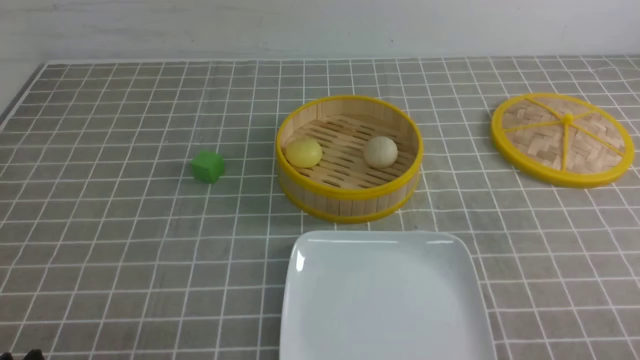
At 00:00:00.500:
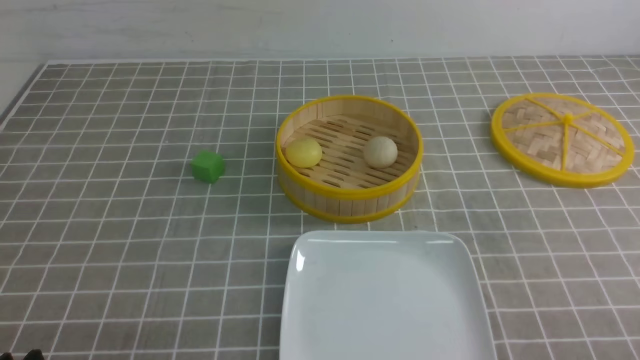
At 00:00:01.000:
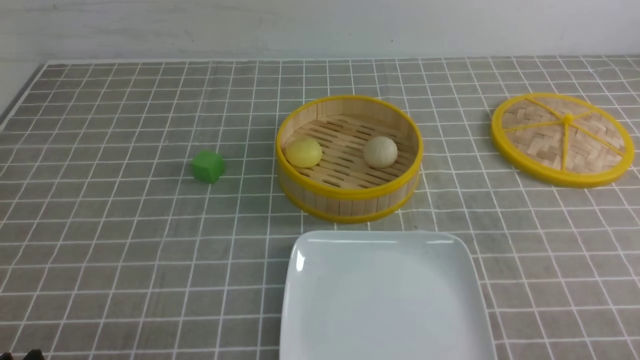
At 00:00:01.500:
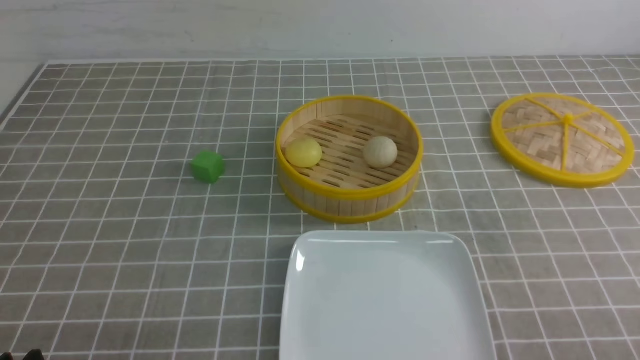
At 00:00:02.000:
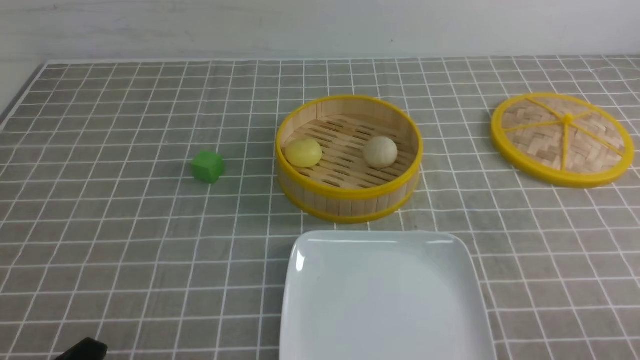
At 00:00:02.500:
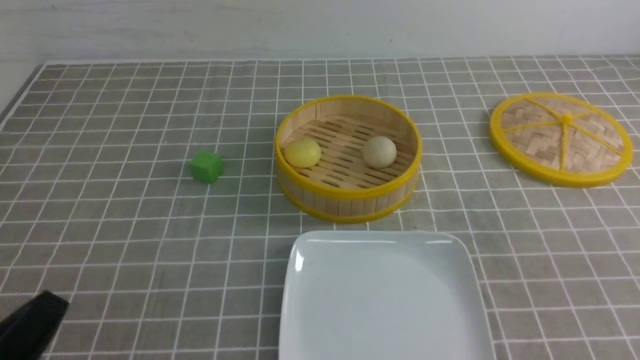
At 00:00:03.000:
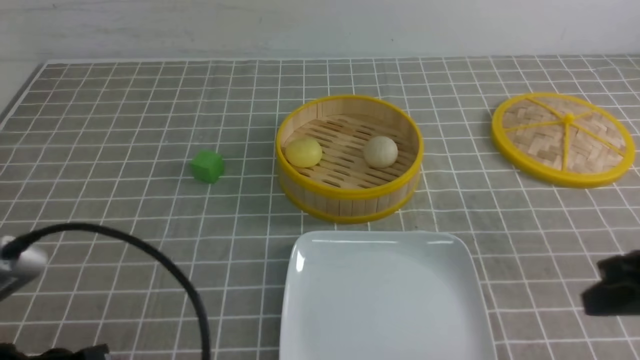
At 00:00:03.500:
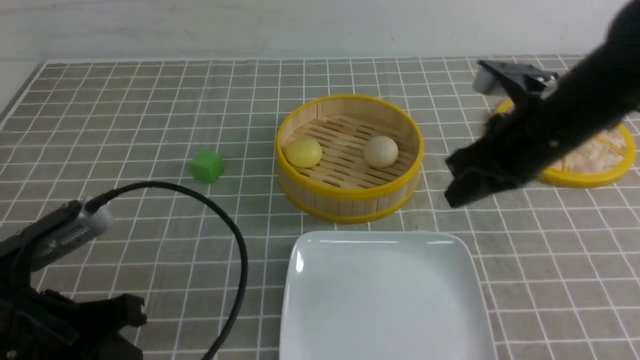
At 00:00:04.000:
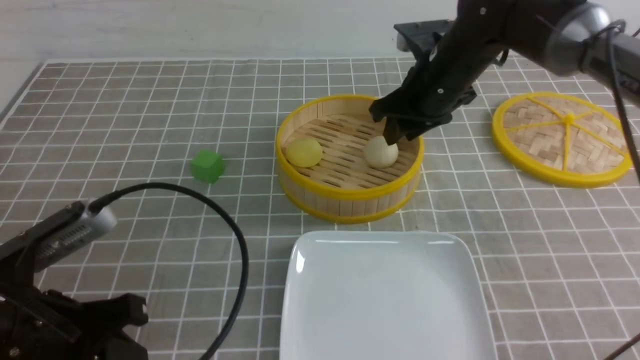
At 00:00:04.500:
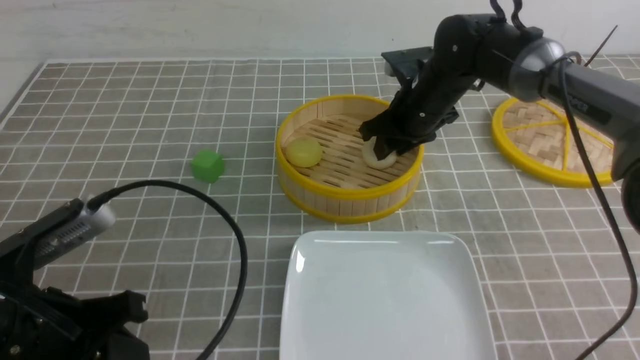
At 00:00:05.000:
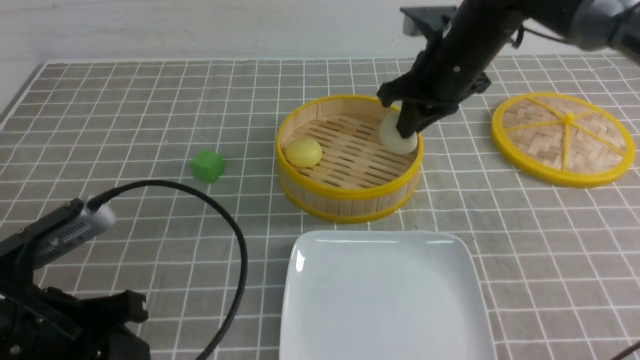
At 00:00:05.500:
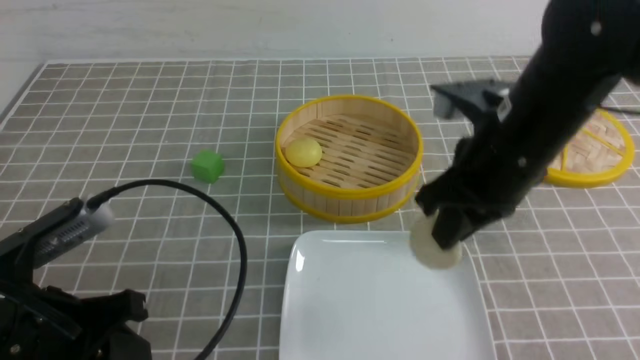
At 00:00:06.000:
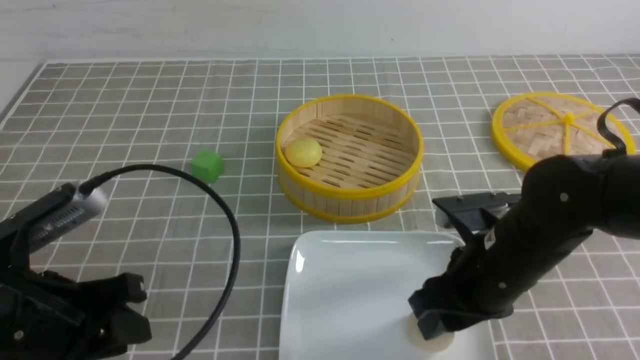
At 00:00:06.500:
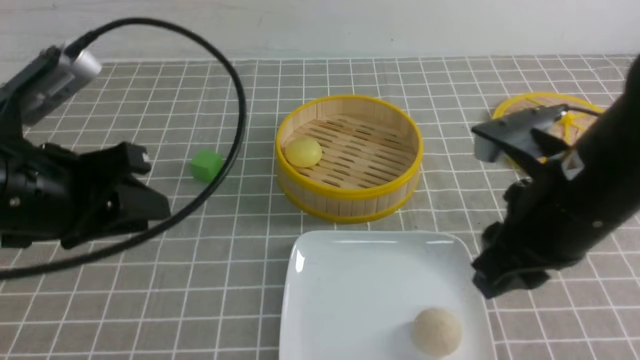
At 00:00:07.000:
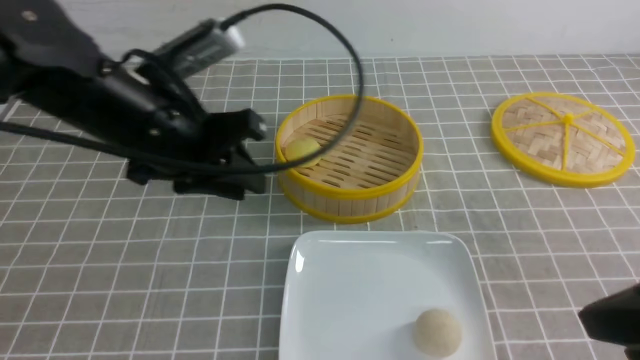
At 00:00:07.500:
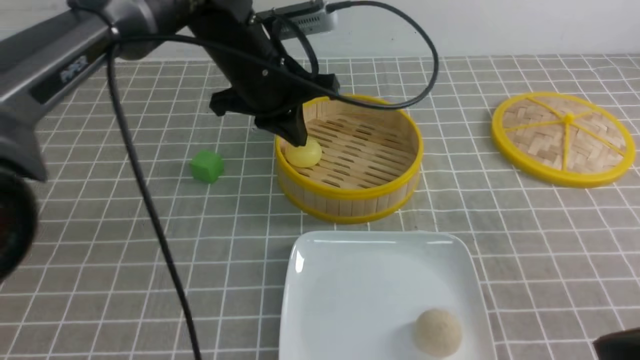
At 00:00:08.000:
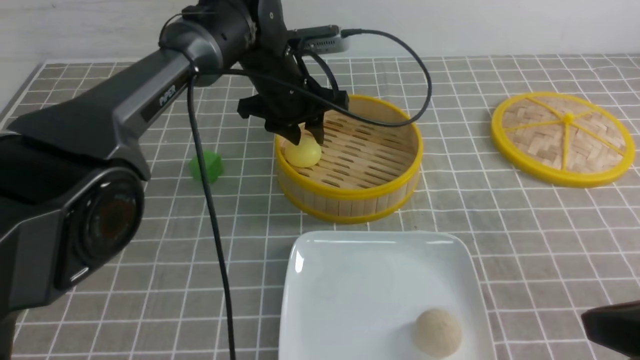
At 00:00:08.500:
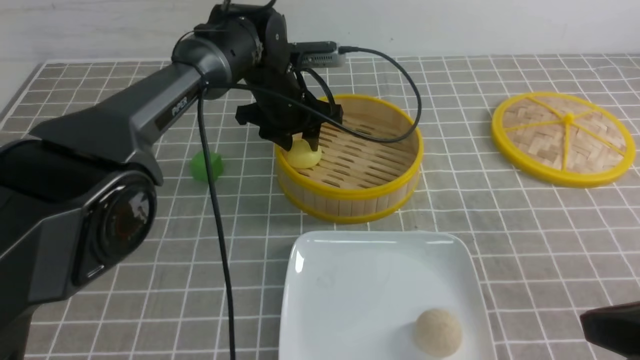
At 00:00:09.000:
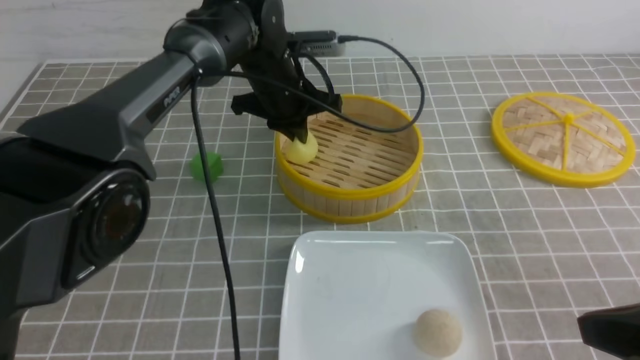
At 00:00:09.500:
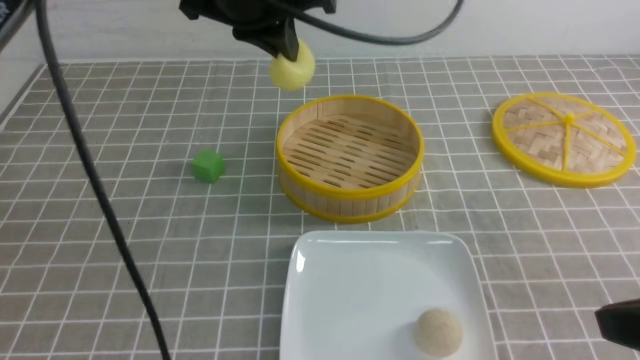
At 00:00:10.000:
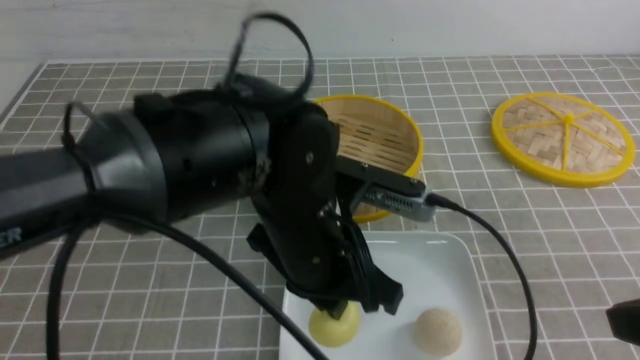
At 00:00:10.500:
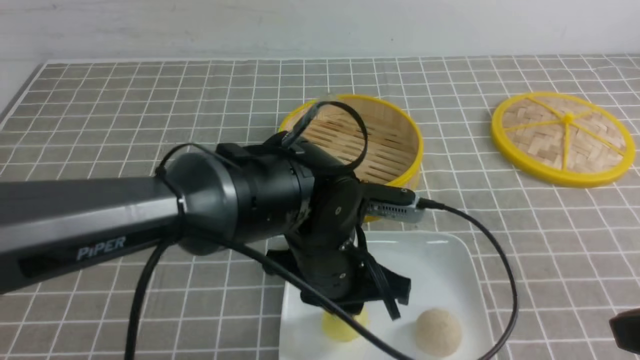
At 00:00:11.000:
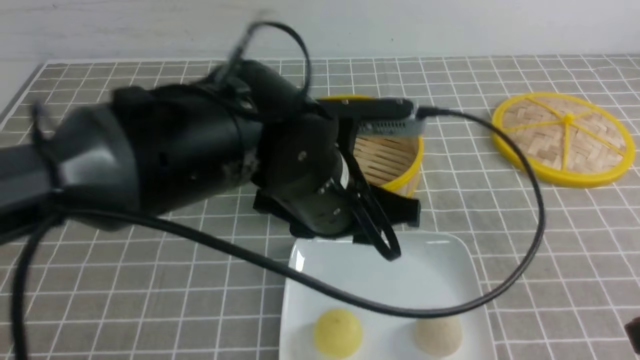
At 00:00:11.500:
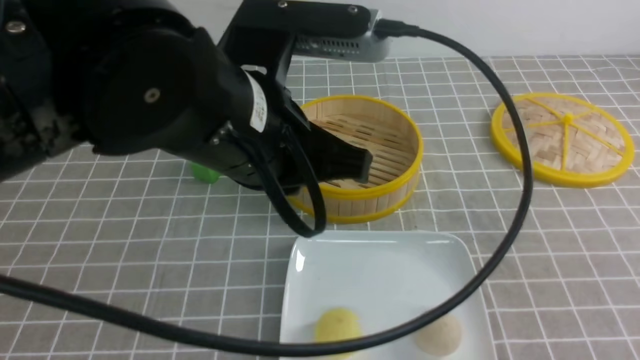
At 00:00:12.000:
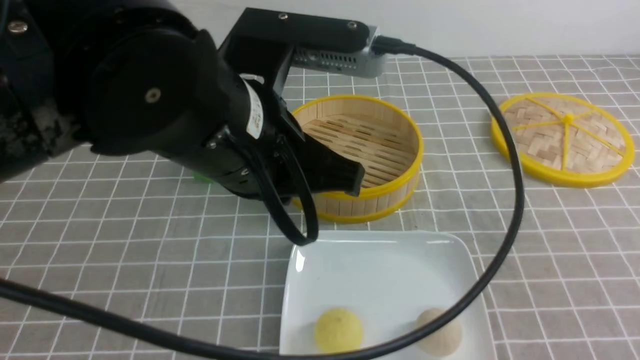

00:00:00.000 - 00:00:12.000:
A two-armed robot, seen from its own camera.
Step, 00:00:00.000 - 00:00:04.500: use the right arm to grab the steamed stuffed bun that is closest to it.
Step, 00:00:05.000 - 00:00:06.000: use the right arm to put the steamed stuffed bun into the plate.
Step, 00:00:06.500 - 00:00:09.000: use the left arm to grab the steamed stuffed bun that is closest to it.
Step, 00:00:09.500 - 00:00:10.500: use the left arm to put the steamed stuffed bun into the plate.
00:00:02.000 - 00:00:04.000: The right gripper goes about 40 cm forward and to the left, and closes, then reopens, while the left gripper goes about 10 cm forward and upward, and closes, then reopens.
00:00:04.000 - 00:00:06.000: The right gripper is displaced backward by some 20 cm, and closes, then opens again.
00:00:06.000 - 00:00:08.000: The left gripper travels forward and to the right by roughly 35 cm, and closes and opens again; the right gripper goes approximately 20 cm backward, to the right and upward, and closes.
00:00:08.000 - 00:00:10.000: The left gripper heads backward, covering about 25 cm, and closes up.
00:00:10.000 - 00:00:12.000: The right gripper changes place by roughly 5 cm; the left gripper moves upward, about 10 cm, and opens, then closes once more.

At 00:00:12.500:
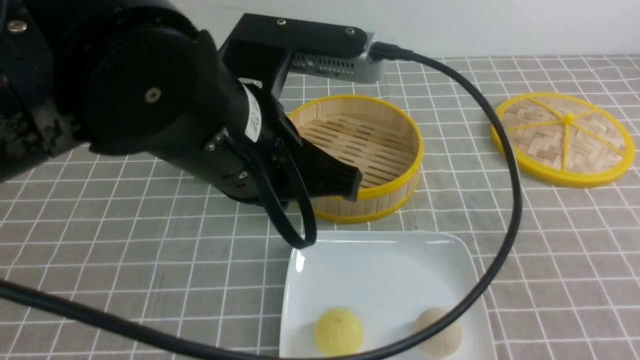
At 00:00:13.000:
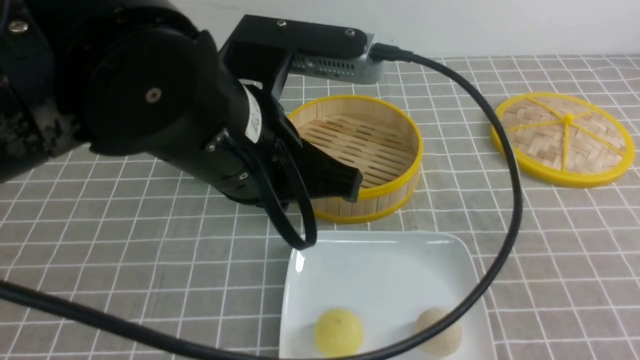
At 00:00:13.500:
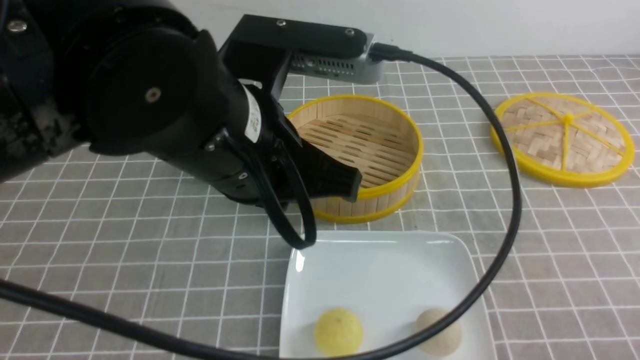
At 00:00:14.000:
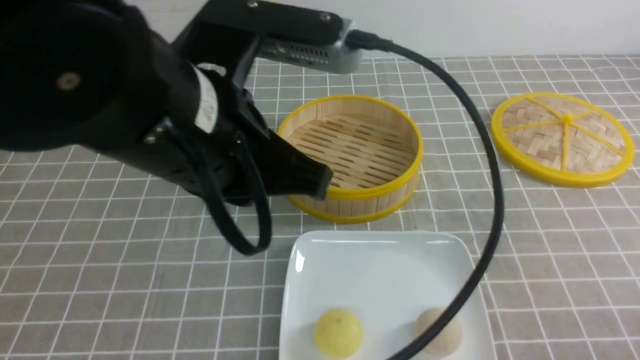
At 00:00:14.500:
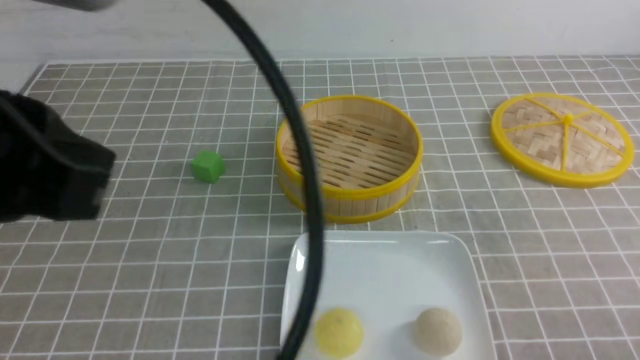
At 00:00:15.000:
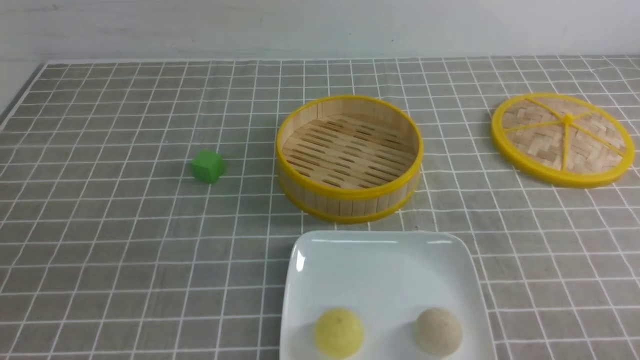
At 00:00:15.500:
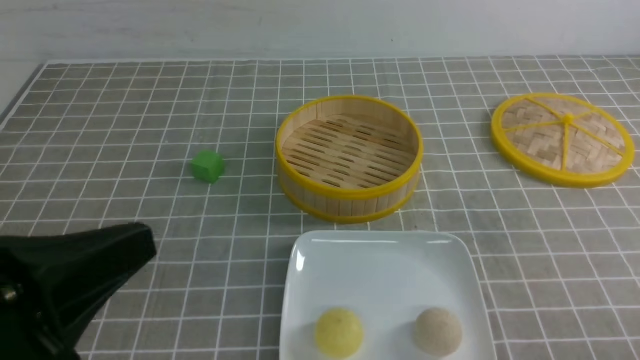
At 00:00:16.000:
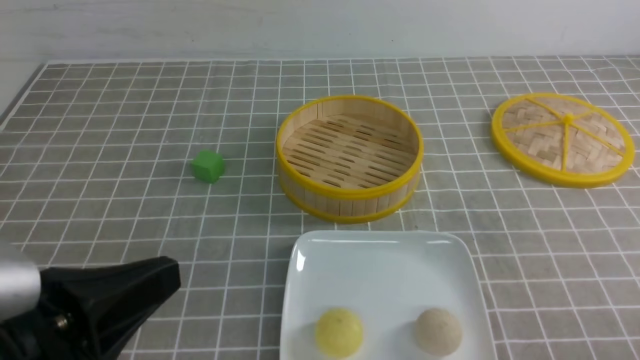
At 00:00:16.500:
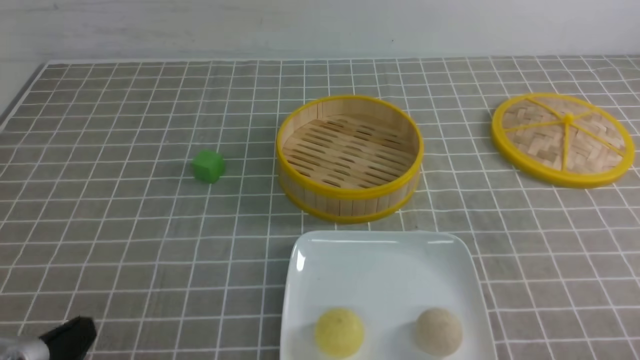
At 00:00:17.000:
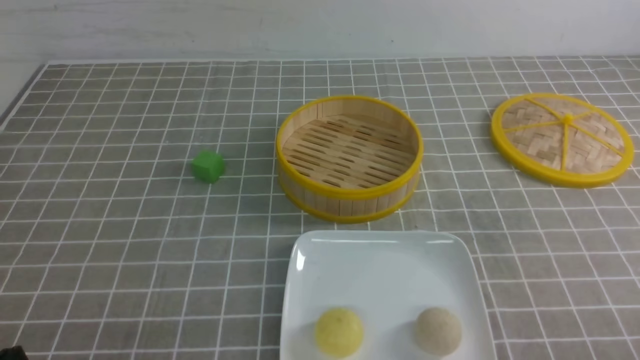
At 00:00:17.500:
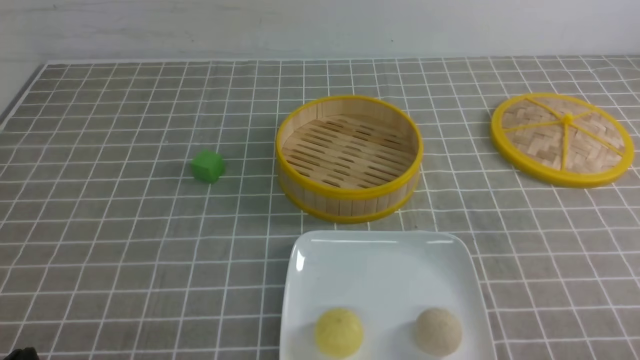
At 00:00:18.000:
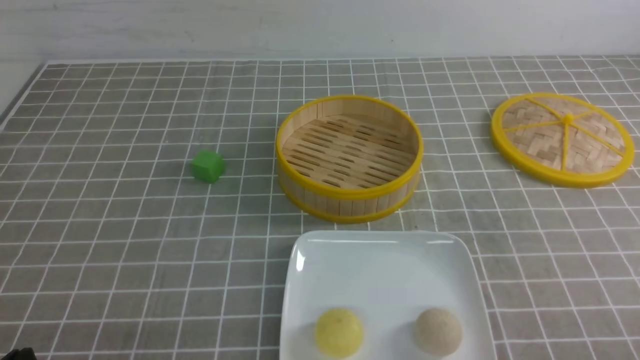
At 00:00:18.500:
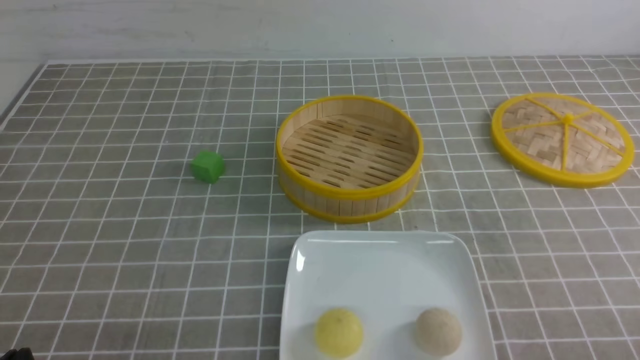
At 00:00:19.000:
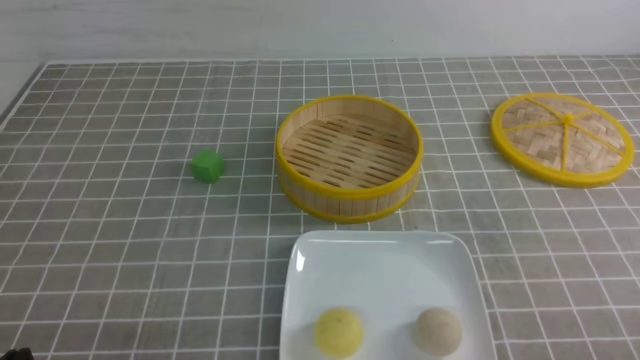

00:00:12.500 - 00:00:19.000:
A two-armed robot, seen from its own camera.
00:00:12.500 - 00:00:14.500: The left gripper goes approximately 15 cm to the left, backward and upward, while the right gripper is displaced downward by some 10 cm.
00:00:14.500 - 00:00:17.000: The left gripper shifts approximately 25 cm downward.
00:00:17.000 - 00:00:19.000: Neither gripper changes place.
